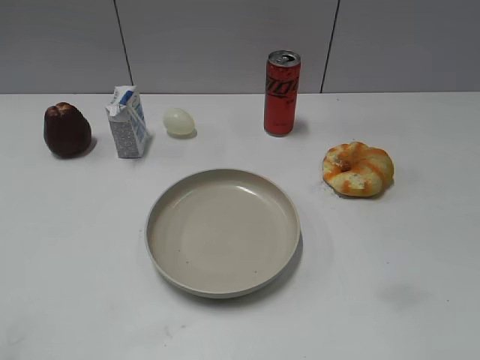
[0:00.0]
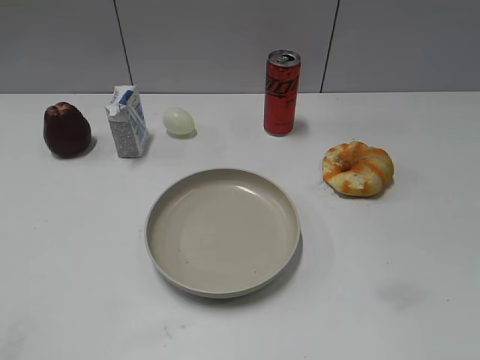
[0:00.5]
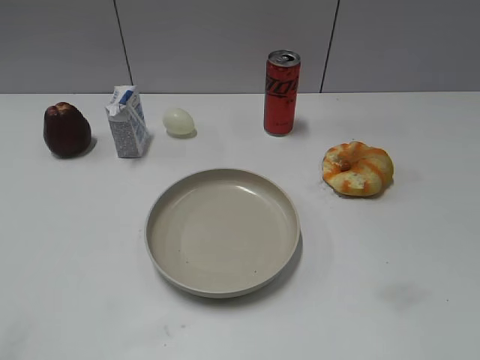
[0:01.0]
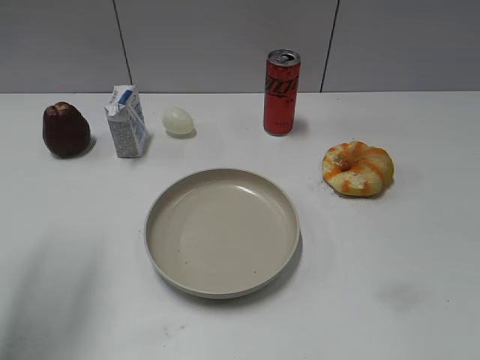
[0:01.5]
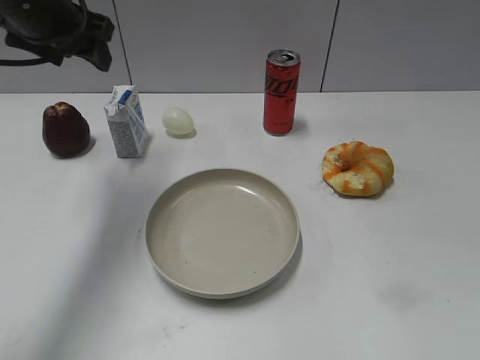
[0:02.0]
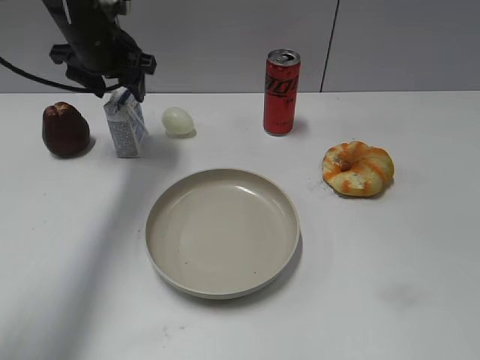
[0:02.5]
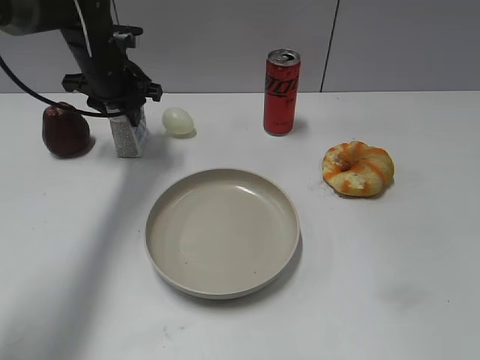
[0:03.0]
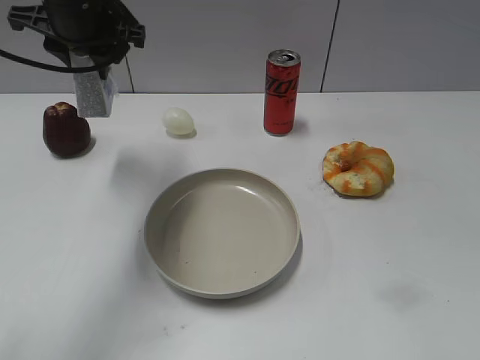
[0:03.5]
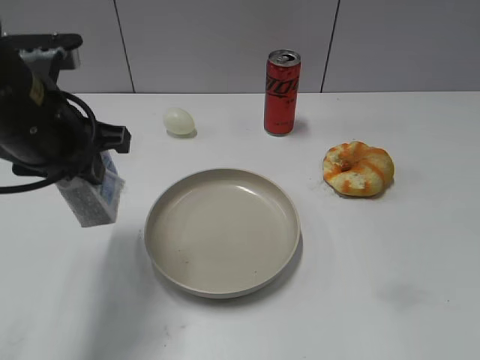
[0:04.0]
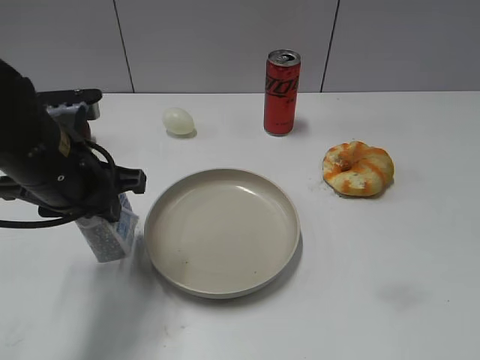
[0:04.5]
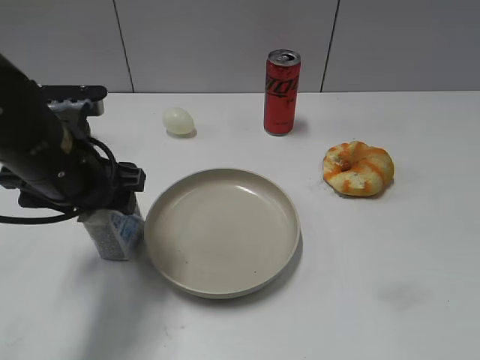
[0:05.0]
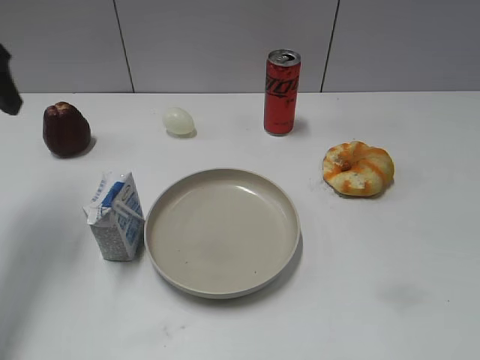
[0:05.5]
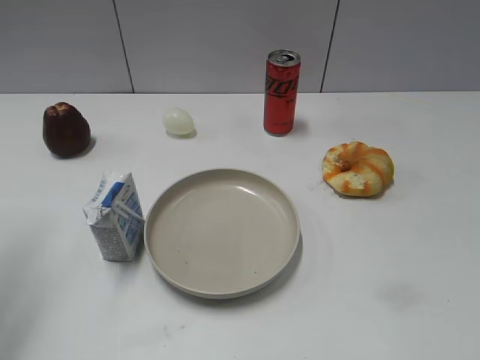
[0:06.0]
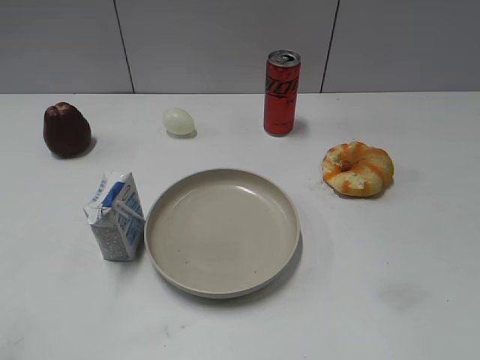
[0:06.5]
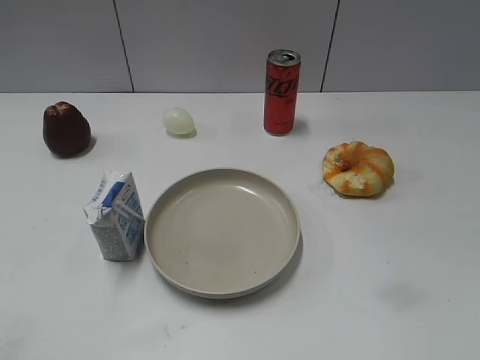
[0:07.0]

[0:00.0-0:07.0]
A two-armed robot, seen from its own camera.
Step, 0:01.0 to 0:02.5: Grasp the milk with left gripper.
Step, 0:03.0 to 0:05.0: Place the milk on the table with left gripper.
0:02.0 to 0:03.5: The left gripper travels forward by roughly 5 cm, reaches approximately 15 cm downward, then returns, and closes up.
0:03.5 to 0:05.0: The left gripper goes approximately 20 cm backward and downward, and opens.
0:05.0 to 0:07.0: The left gripper moves backward and to the left, roughly 30 cm.
